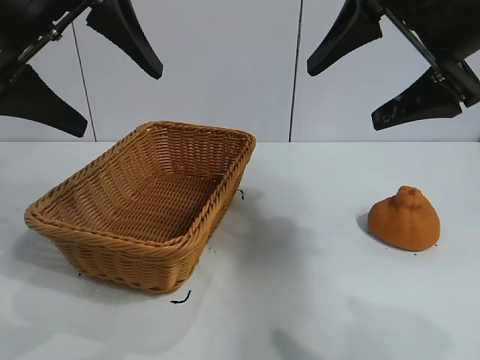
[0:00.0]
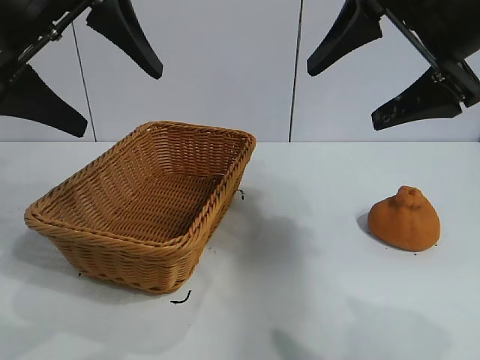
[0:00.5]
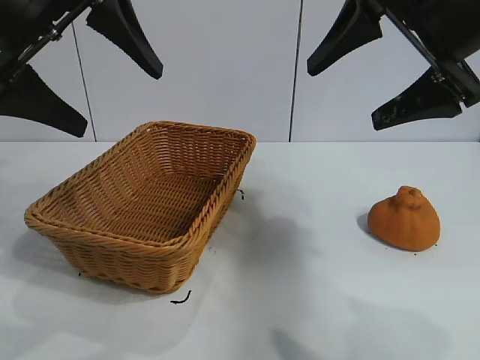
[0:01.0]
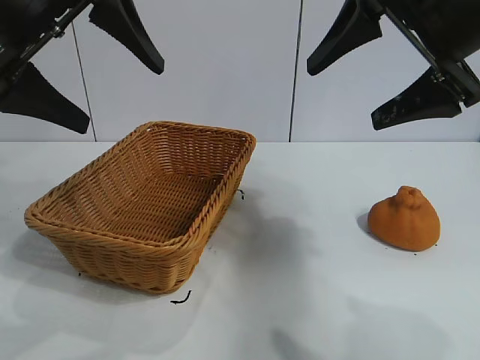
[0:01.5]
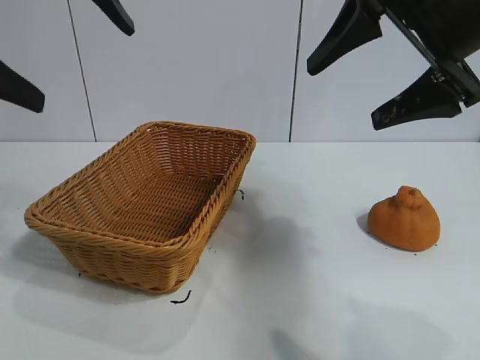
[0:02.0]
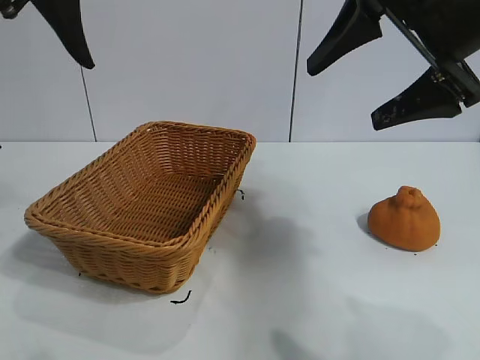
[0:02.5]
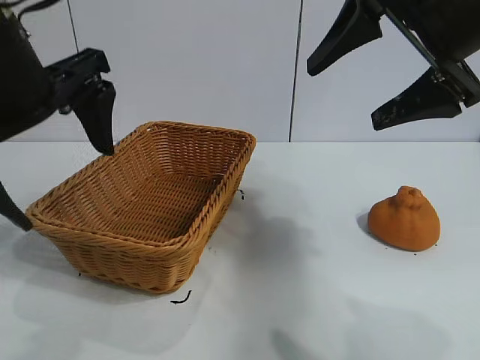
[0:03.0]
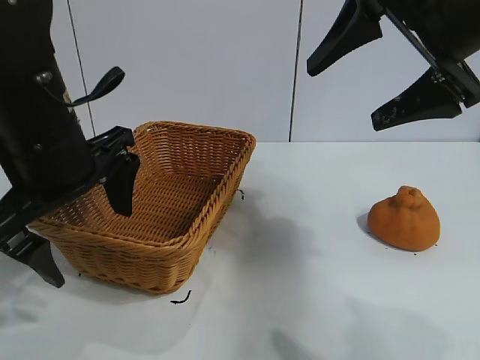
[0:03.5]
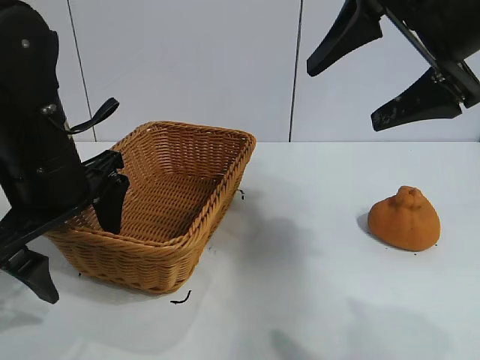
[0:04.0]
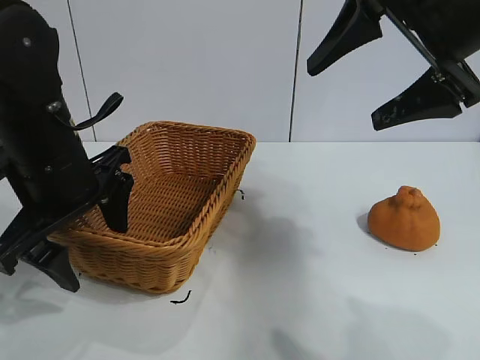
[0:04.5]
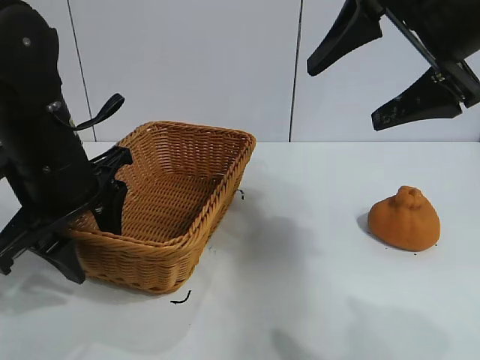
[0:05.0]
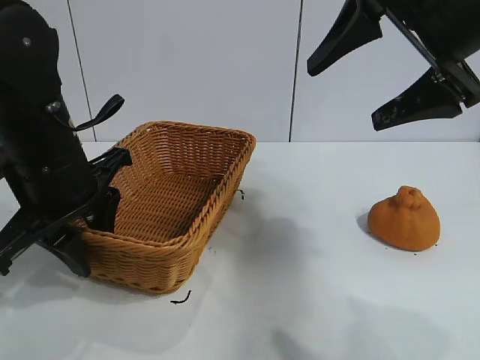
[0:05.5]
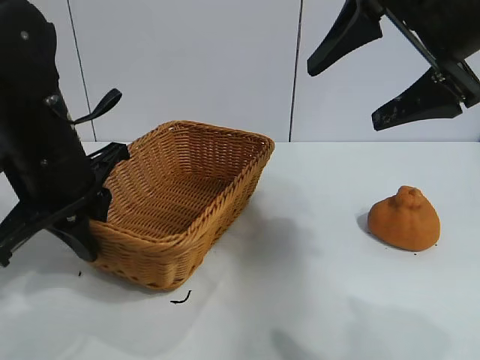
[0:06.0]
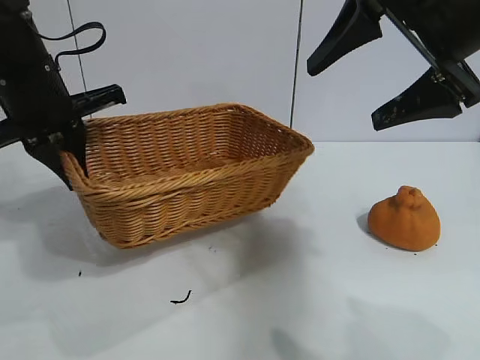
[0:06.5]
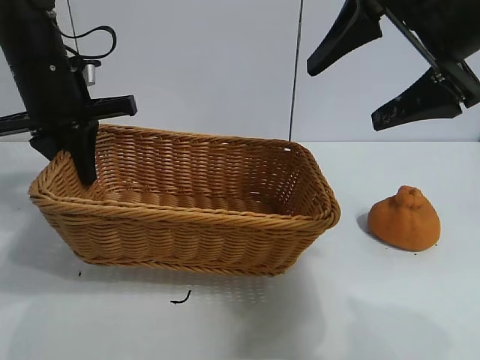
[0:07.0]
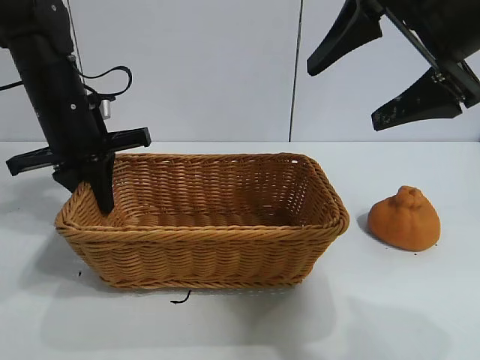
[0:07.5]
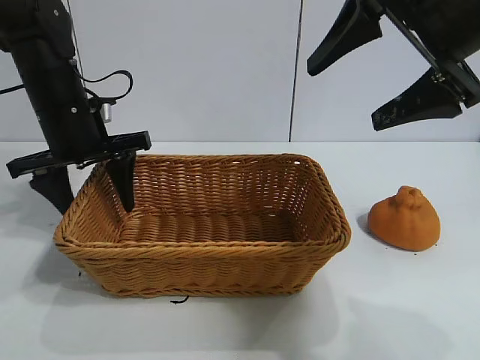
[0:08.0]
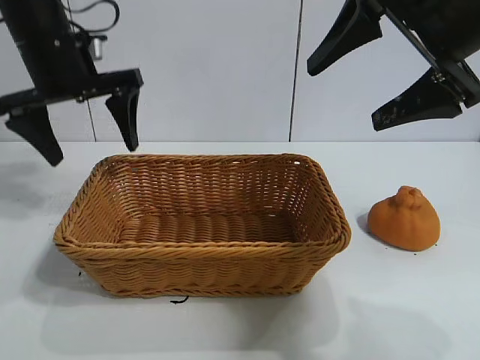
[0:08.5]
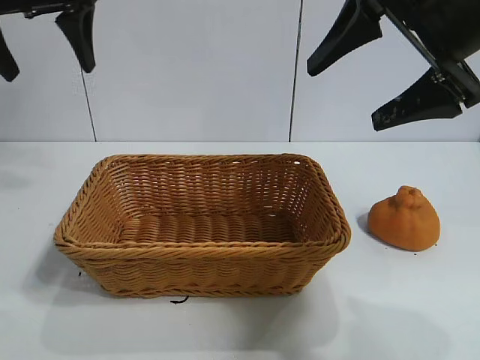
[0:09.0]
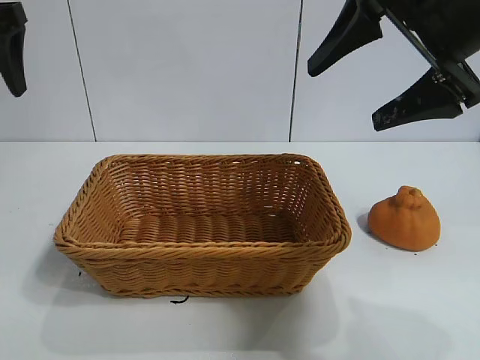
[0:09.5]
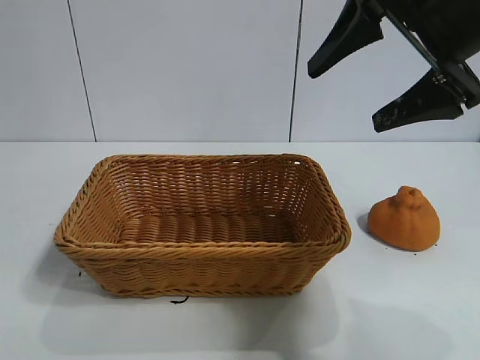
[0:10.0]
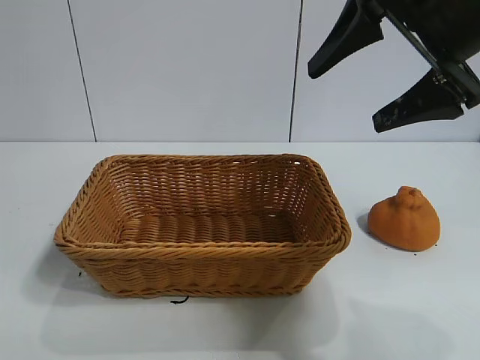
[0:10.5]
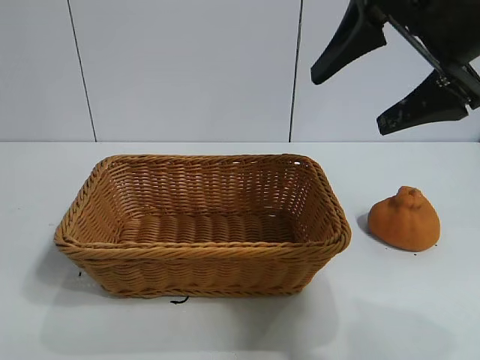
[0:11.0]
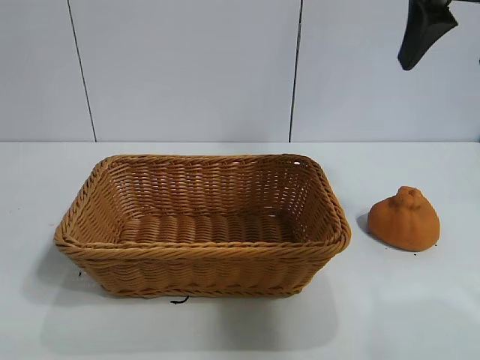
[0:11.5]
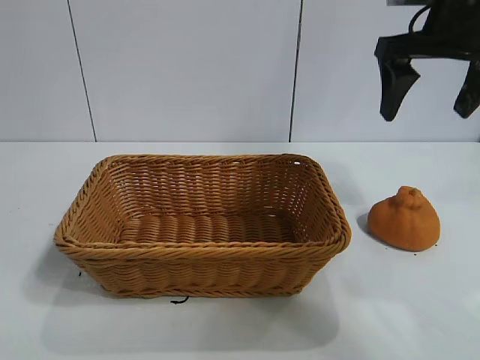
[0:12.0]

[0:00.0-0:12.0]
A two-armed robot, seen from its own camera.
Task of the whole recording: pick up the orange and put it into the basket.
Step, 0:01.5 to 0:05.5: Grasp the basket with left gripper.
Step, 0:06.0 to 0:08.0: Place the basket in the center of view with left gripper.

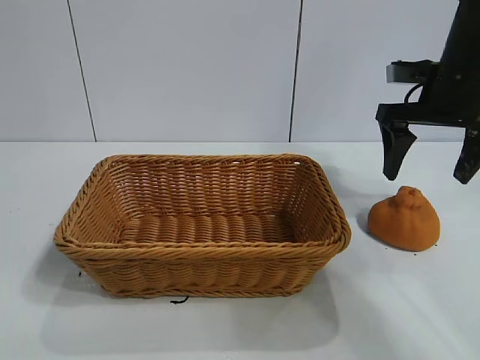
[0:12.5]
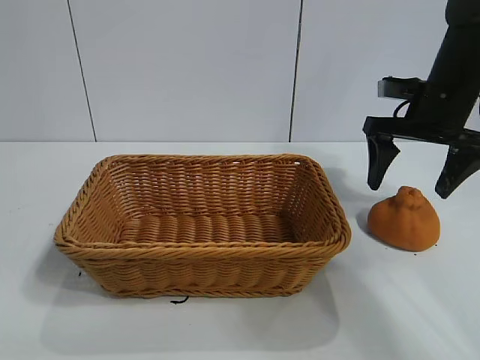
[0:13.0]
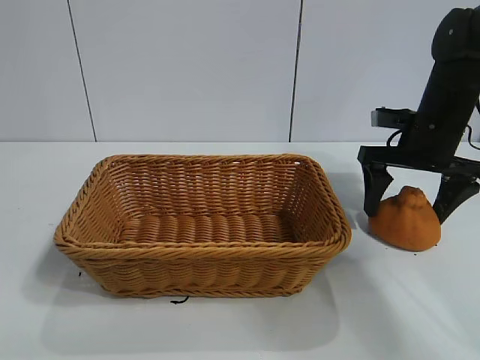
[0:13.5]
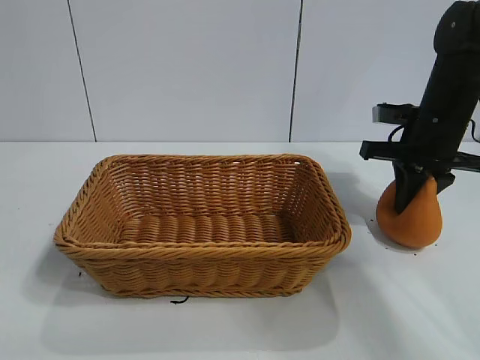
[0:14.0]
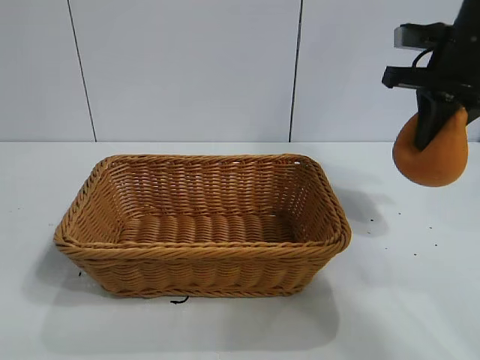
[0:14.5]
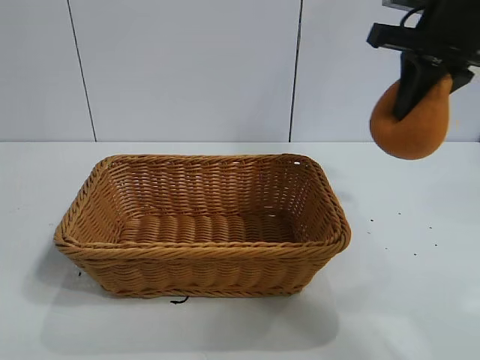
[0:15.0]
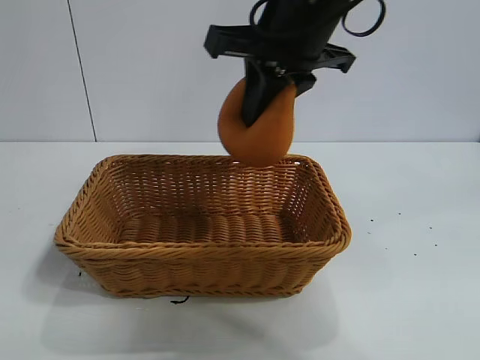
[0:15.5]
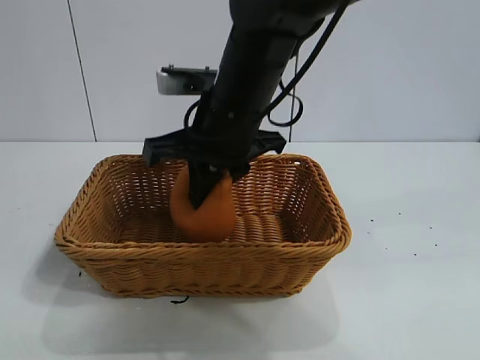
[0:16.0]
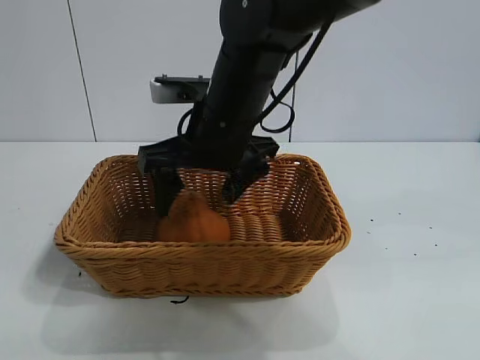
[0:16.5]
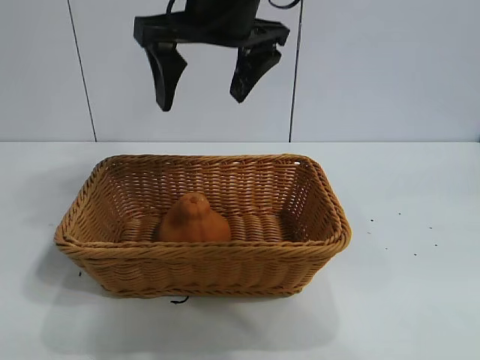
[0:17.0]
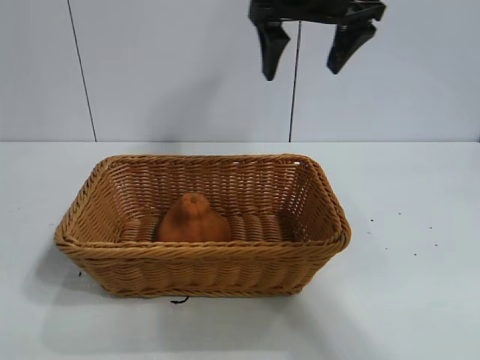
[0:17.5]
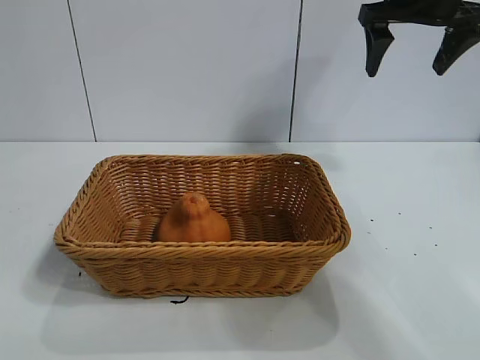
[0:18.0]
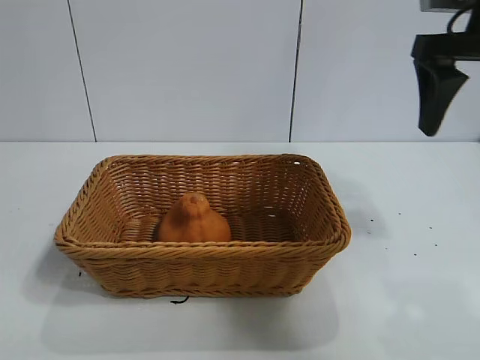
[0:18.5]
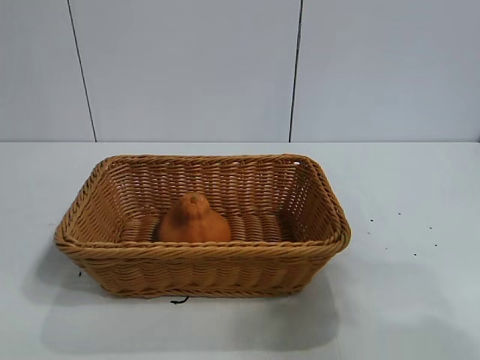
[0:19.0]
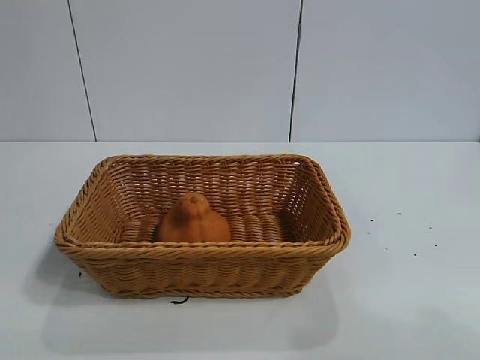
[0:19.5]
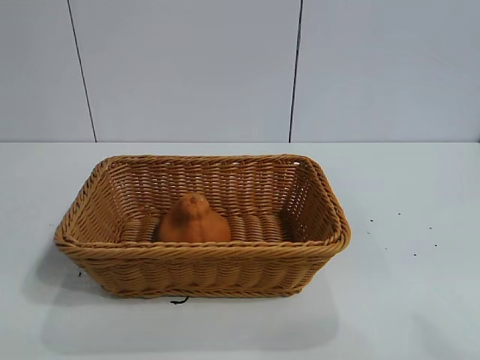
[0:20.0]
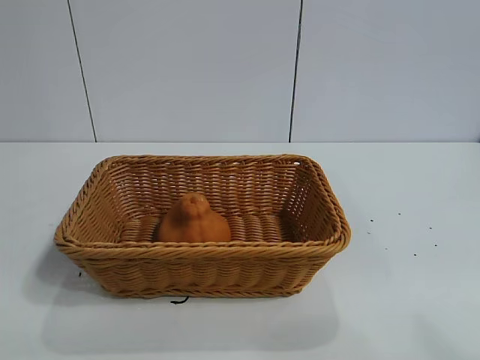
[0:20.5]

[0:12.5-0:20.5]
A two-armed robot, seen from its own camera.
Task of the whole recording: pick up the orange and put it into the basket.
Step, 0:14.5 to 0:16.5: Place the orange in the basket with right gripper.

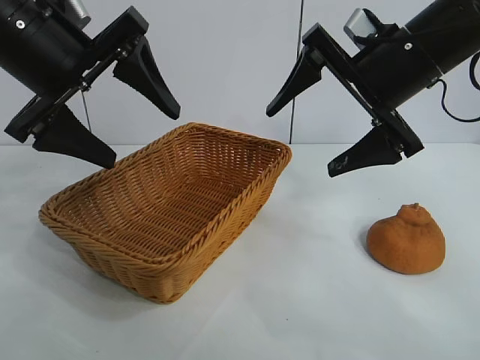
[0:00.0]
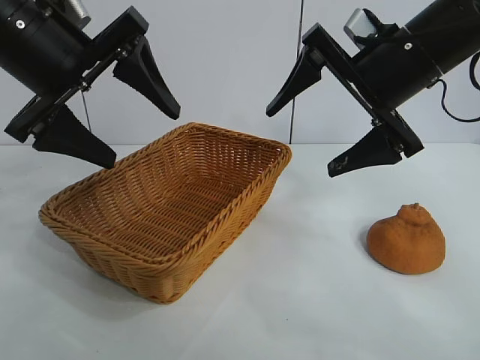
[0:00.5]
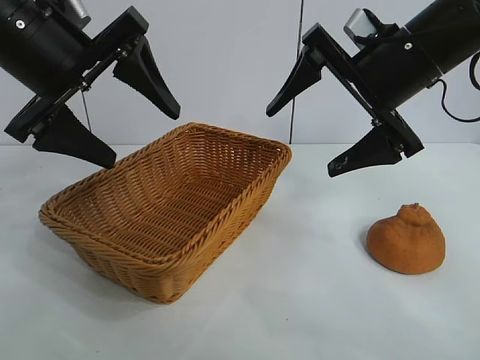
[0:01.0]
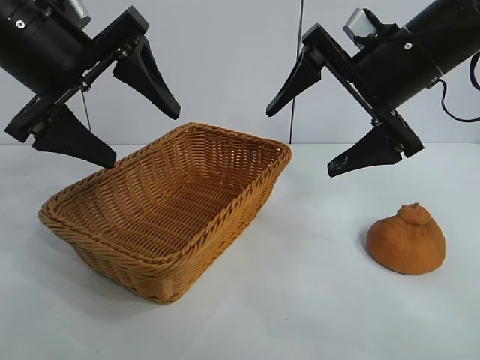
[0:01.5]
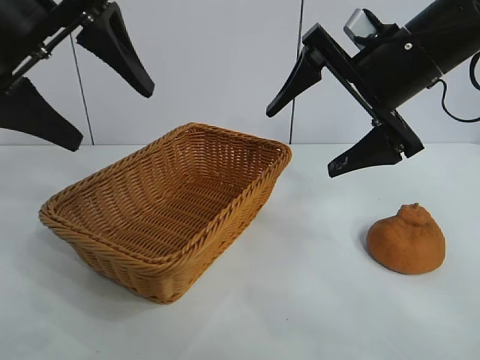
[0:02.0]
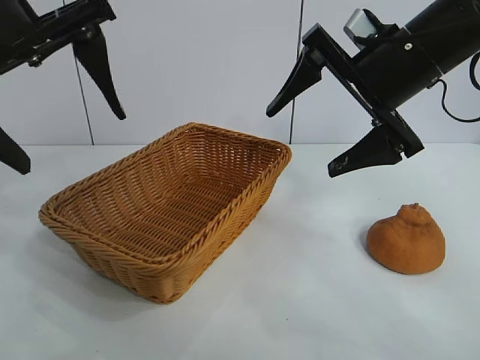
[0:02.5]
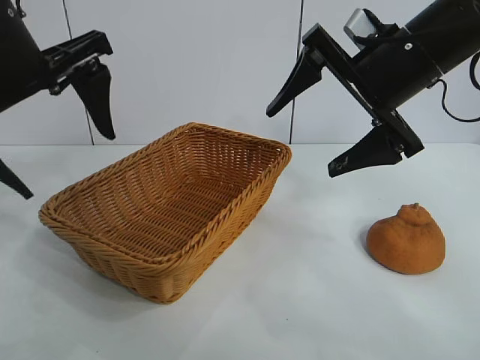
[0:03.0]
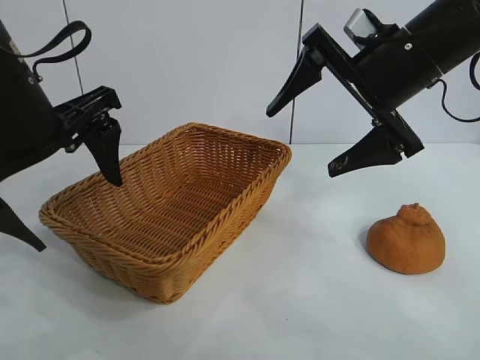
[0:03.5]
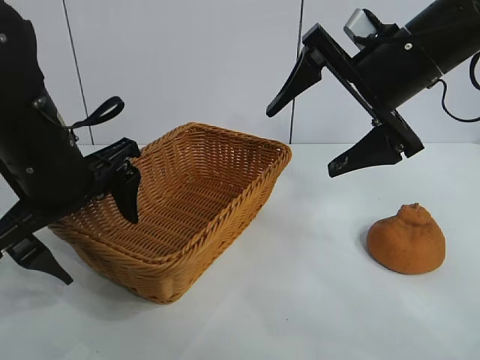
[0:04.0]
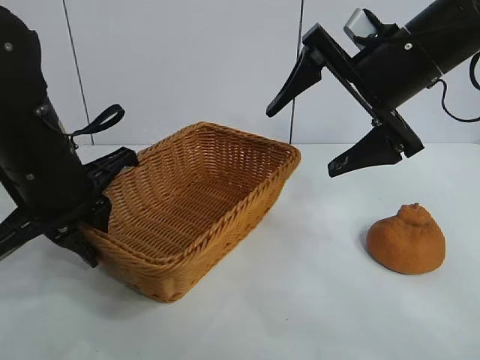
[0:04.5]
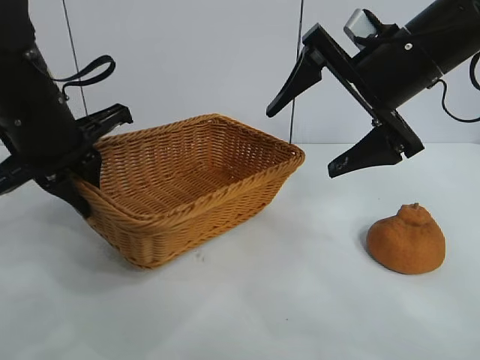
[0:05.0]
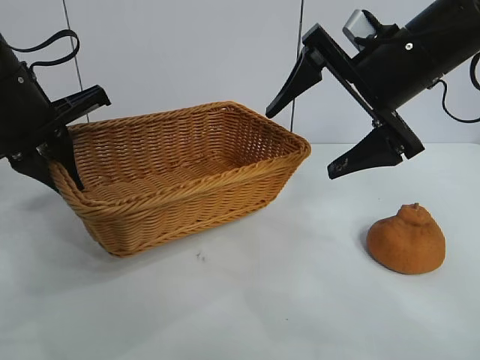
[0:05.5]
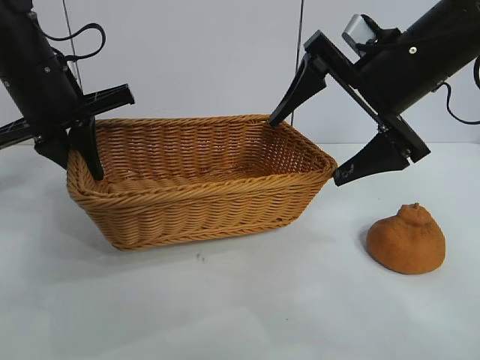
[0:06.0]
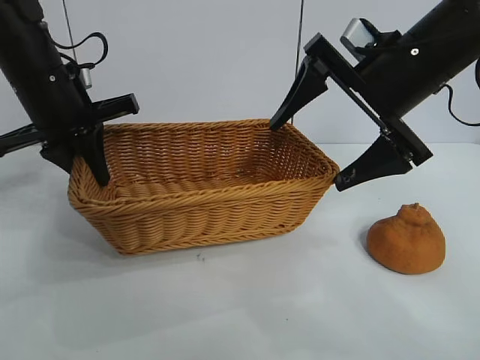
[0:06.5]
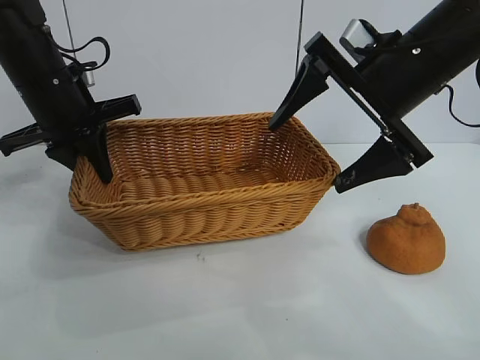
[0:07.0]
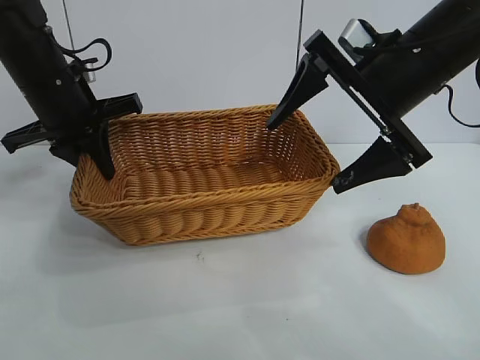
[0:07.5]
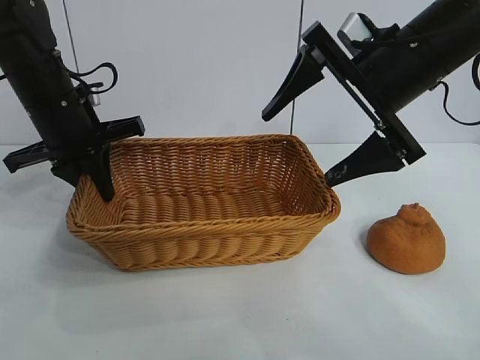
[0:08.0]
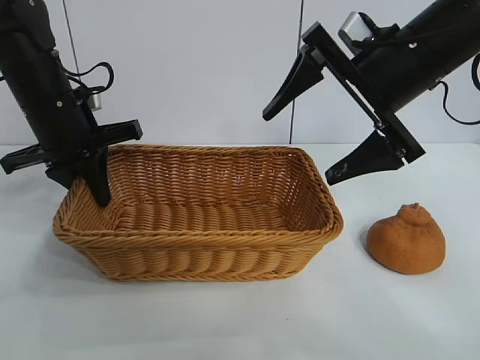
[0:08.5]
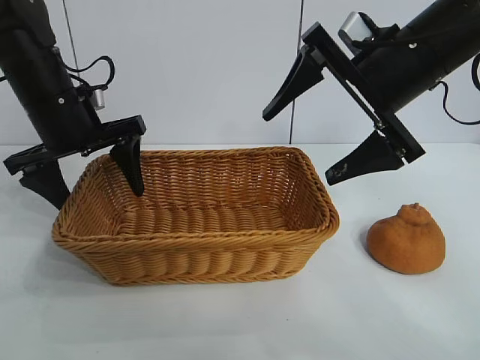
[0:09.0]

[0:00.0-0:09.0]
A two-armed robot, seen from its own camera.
Task of the whole recording: pick up the orange and put it into the basket.
Step, 0:02.0 to 0:04.5: Grasp the basket with left gripper.
Step, 0:05.0 to 0:09.0: Place the basket in the center of view with left gripper.
